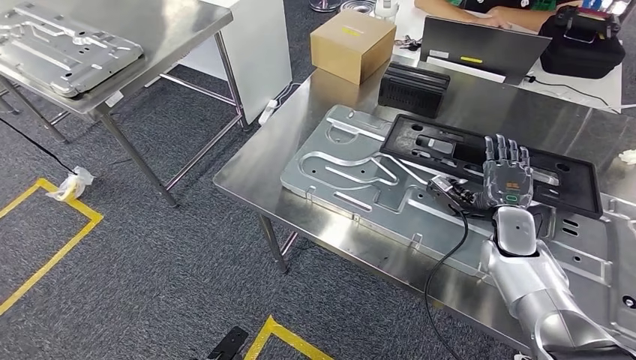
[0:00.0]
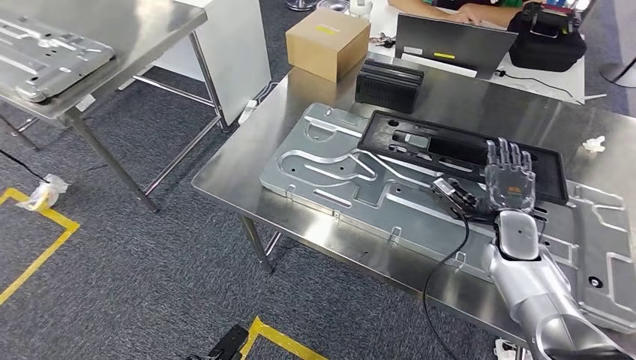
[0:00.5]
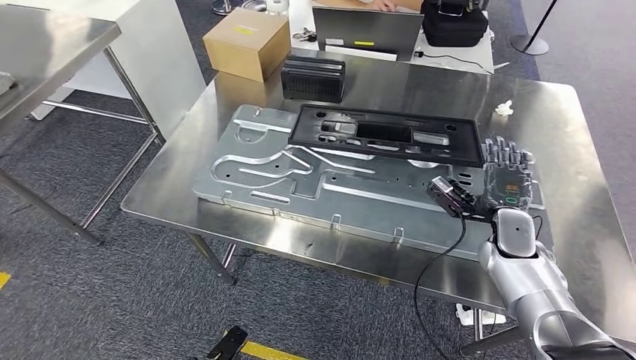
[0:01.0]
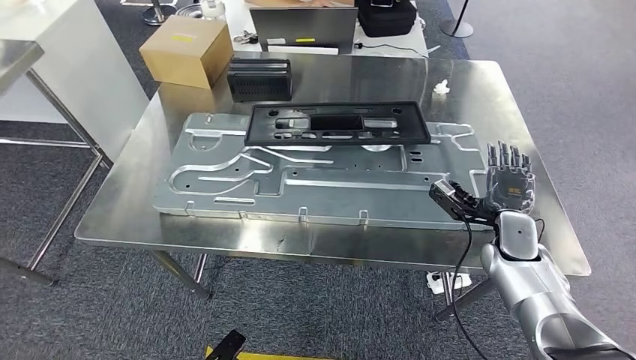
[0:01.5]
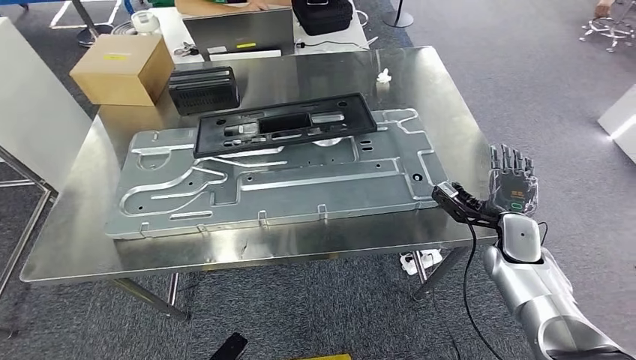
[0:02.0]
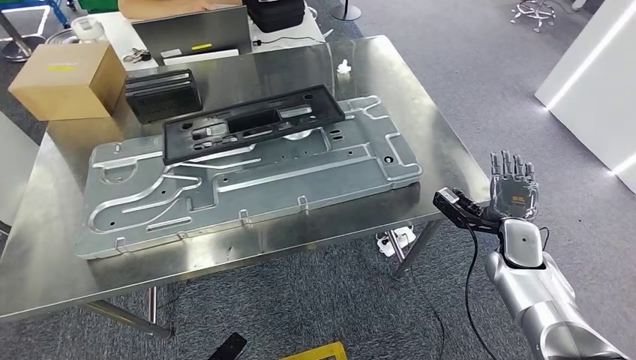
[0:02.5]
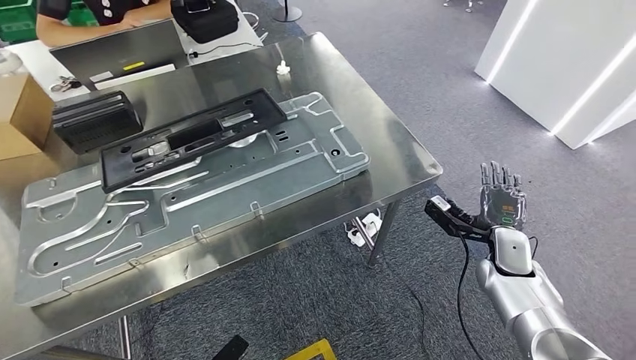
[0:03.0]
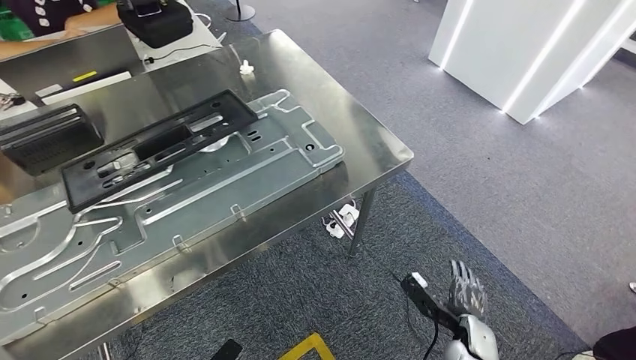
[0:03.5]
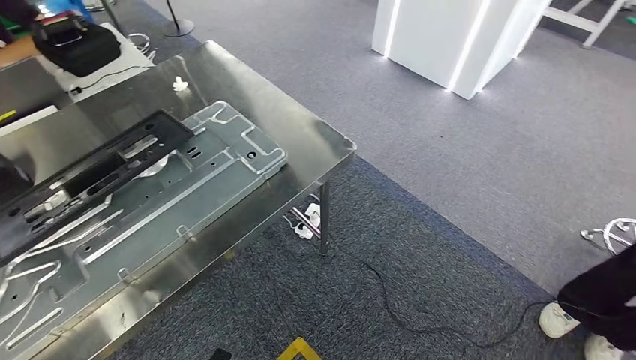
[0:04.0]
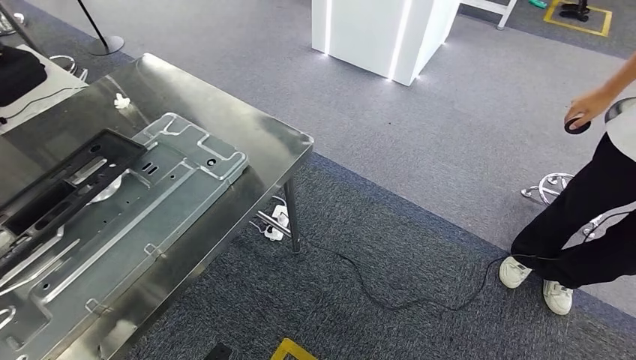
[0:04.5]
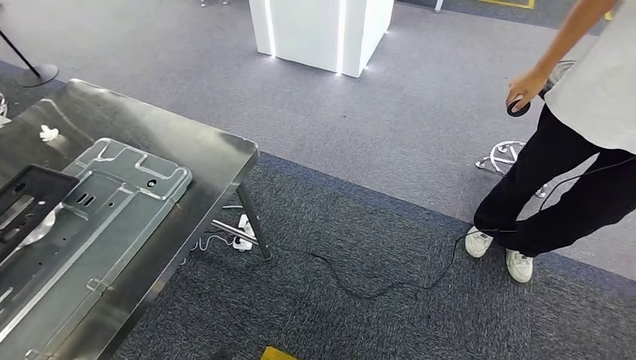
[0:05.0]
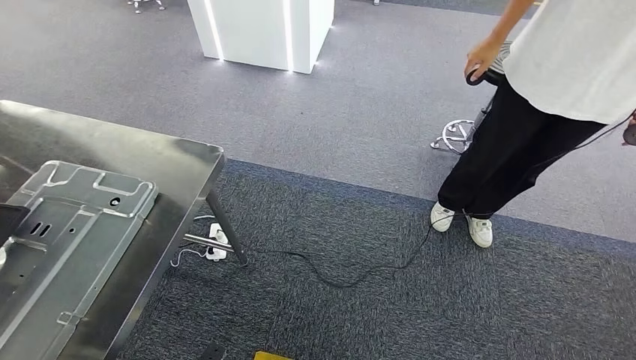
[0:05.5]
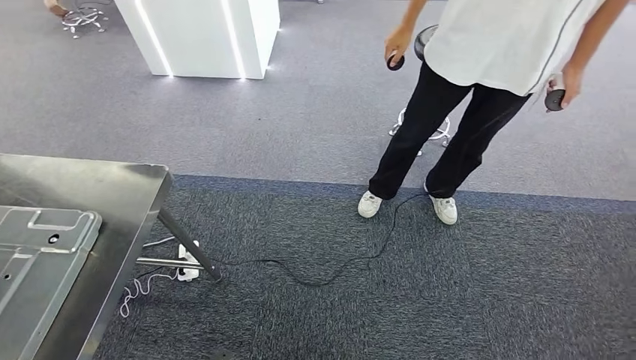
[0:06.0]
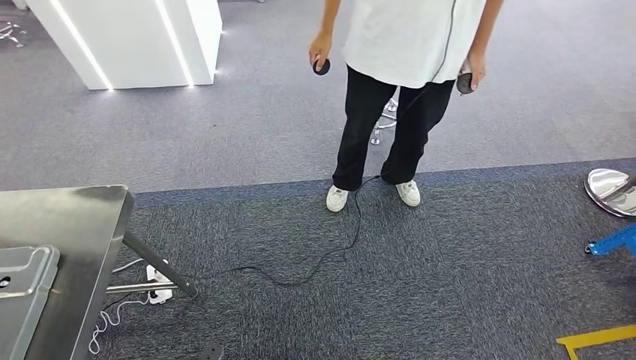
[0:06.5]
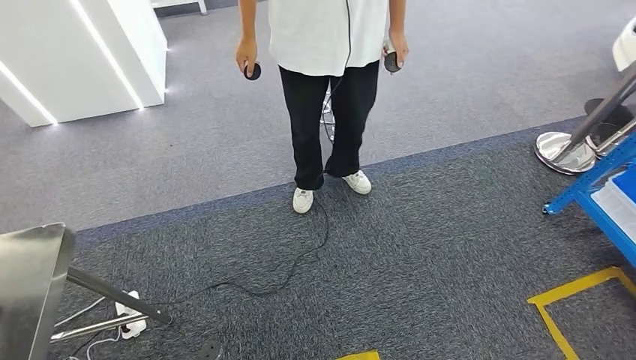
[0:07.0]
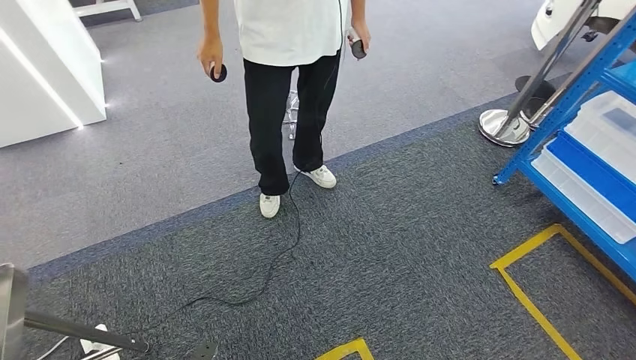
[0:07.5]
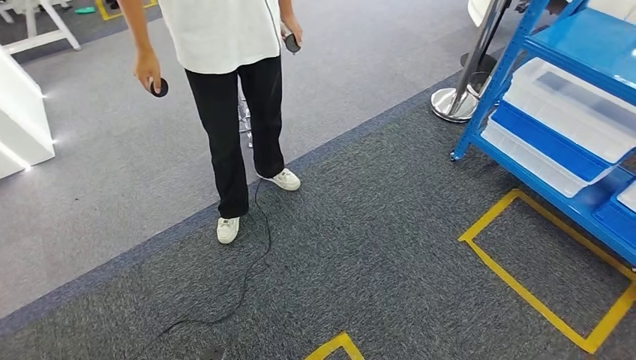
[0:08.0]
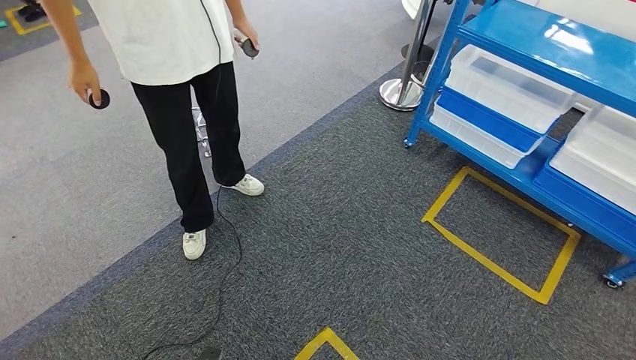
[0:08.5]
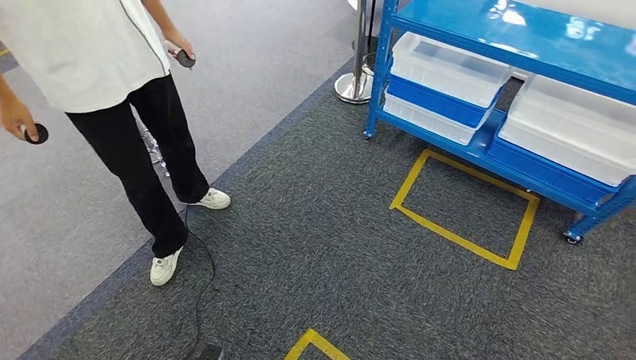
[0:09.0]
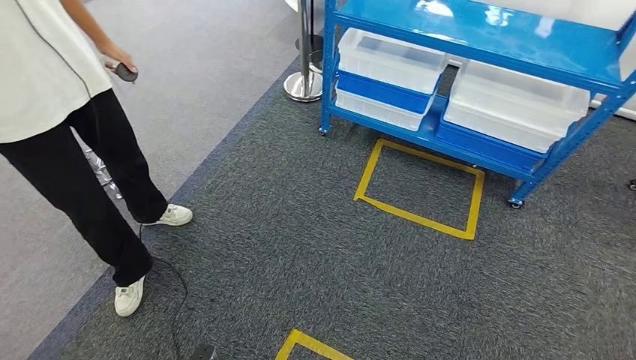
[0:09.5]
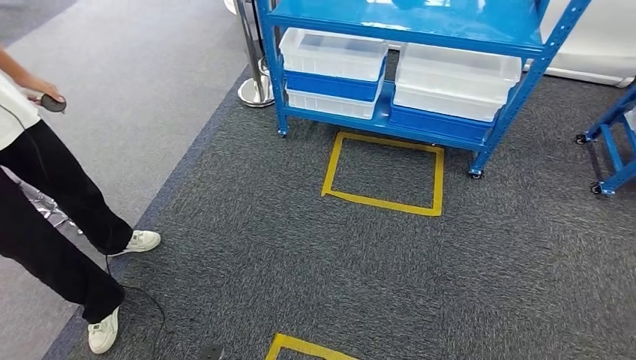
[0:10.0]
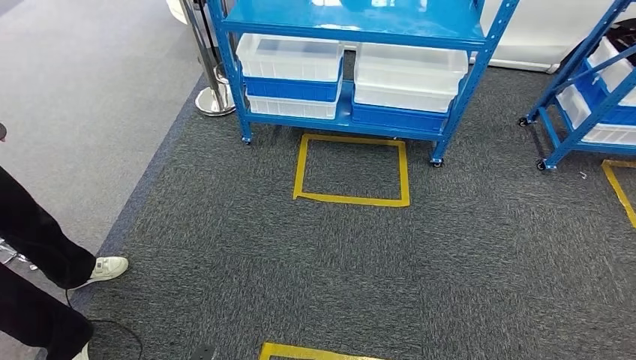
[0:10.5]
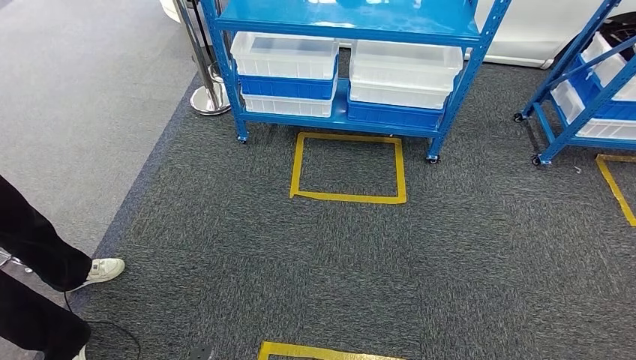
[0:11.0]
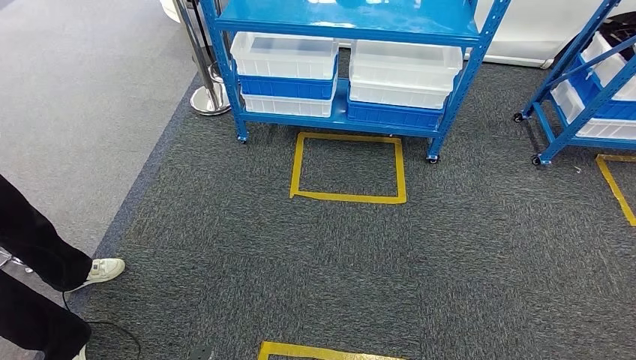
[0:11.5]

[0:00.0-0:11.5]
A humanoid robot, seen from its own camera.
Step, 0:00.0 to 0:11.5: Move to the initial position of the shelf.

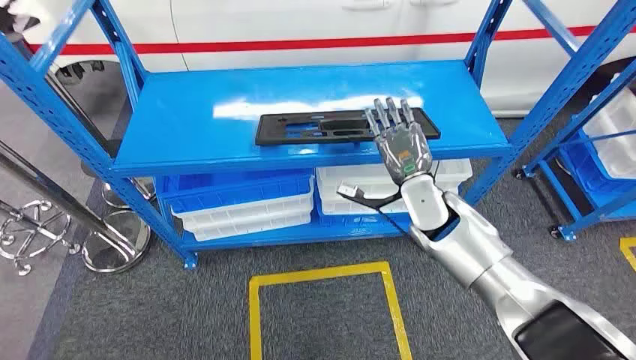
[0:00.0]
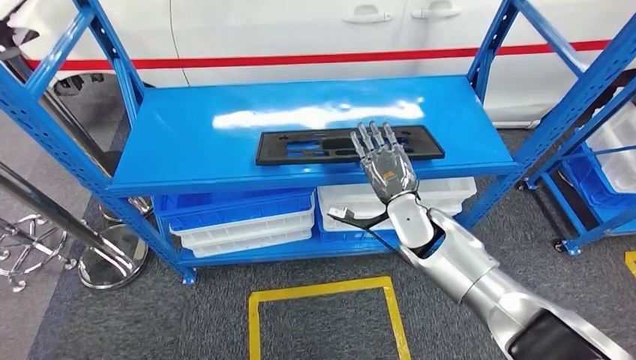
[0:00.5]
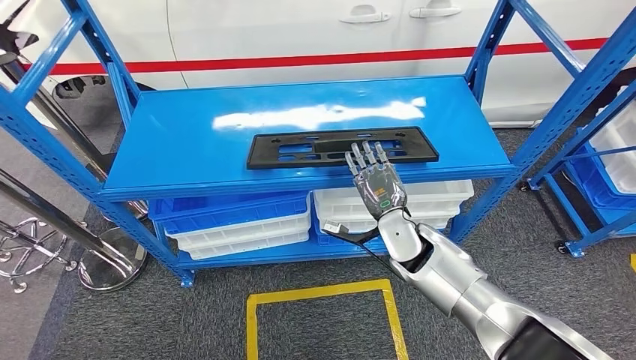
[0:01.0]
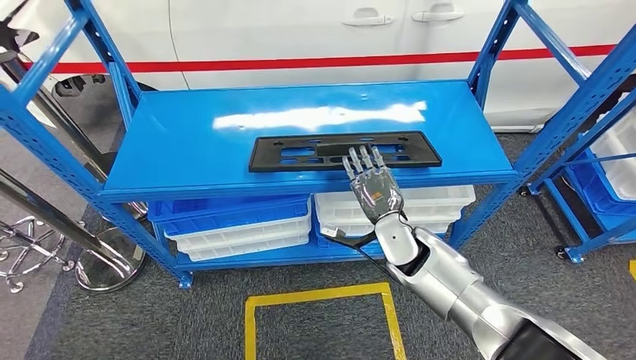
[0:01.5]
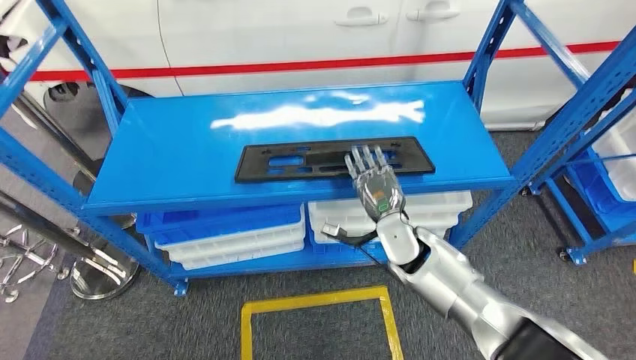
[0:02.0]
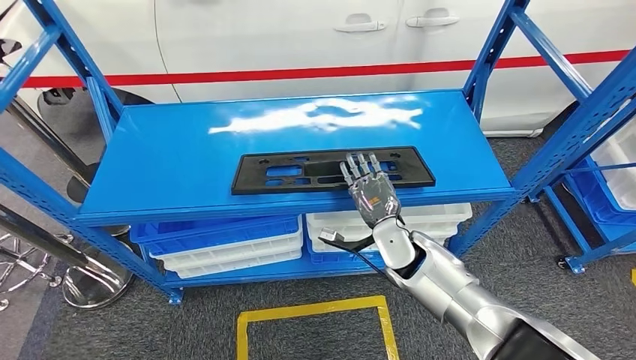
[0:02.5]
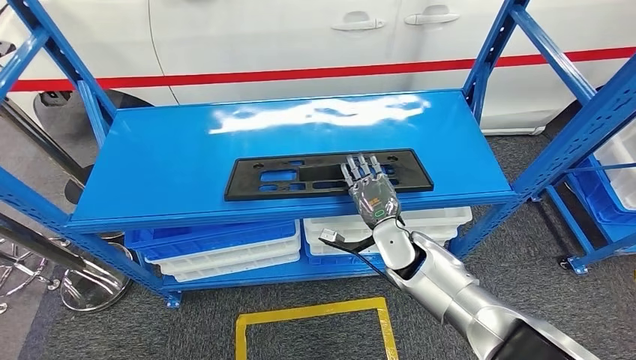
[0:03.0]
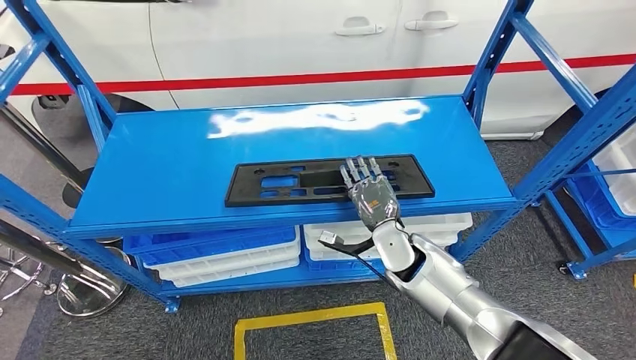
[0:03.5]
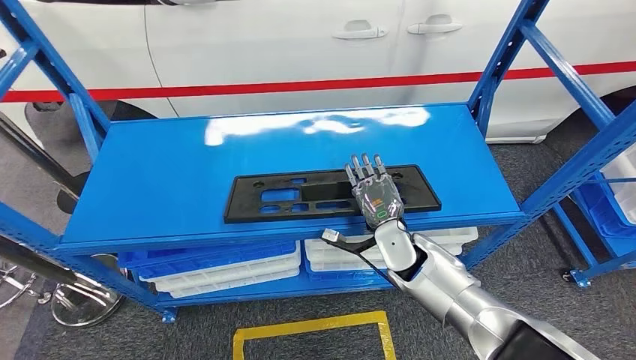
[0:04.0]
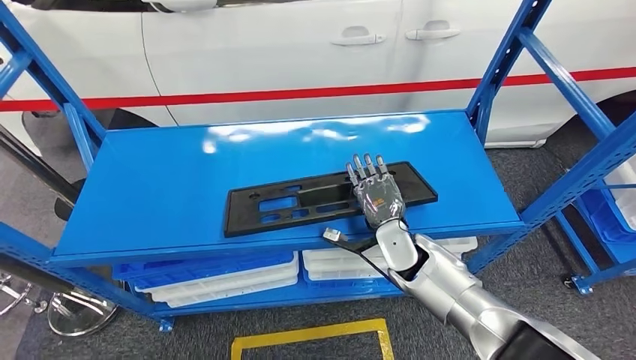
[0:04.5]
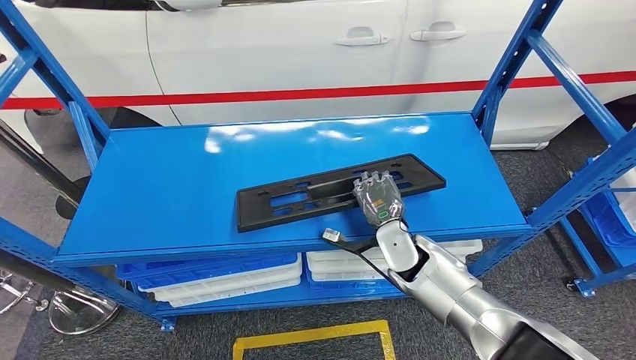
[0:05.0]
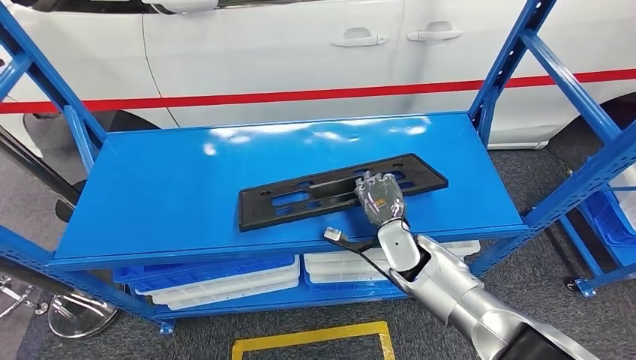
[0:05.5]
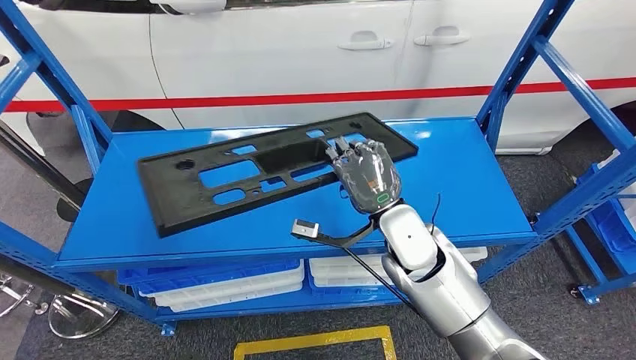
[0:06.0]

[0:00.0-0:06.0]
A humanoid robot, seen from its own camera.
Step, 0:00.0 to 0:06.0: Pick up the large material from the shelf.
